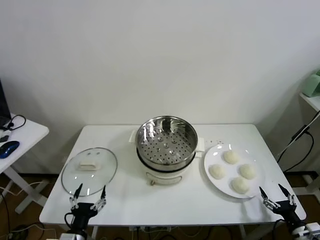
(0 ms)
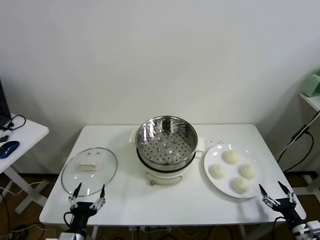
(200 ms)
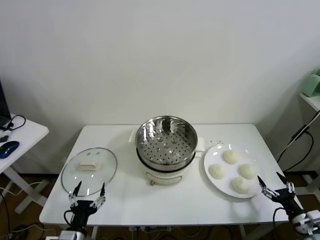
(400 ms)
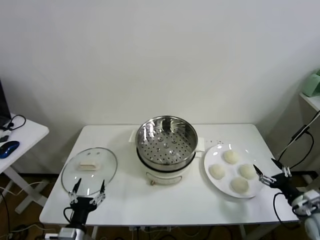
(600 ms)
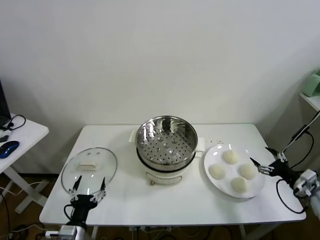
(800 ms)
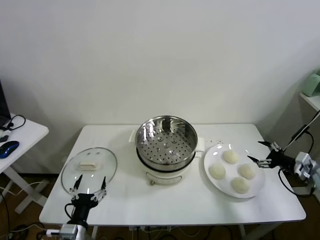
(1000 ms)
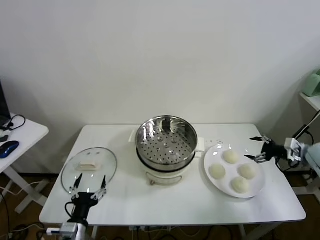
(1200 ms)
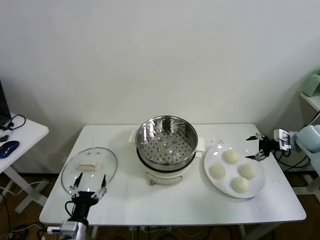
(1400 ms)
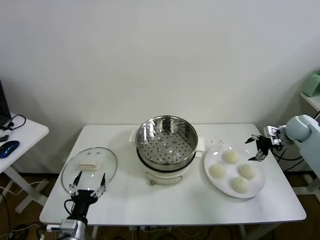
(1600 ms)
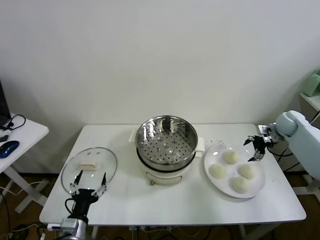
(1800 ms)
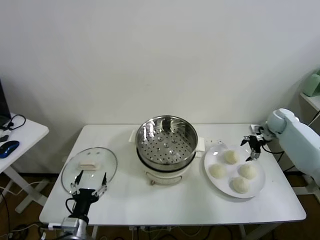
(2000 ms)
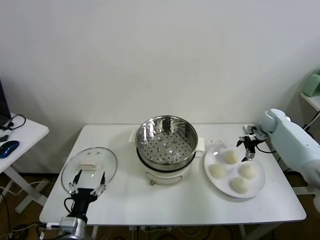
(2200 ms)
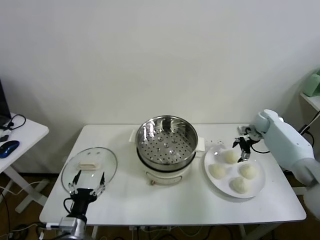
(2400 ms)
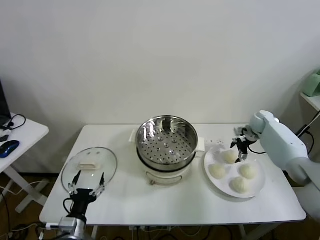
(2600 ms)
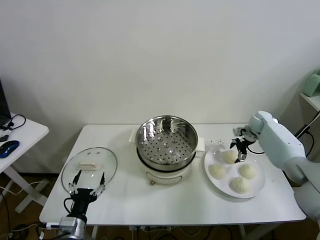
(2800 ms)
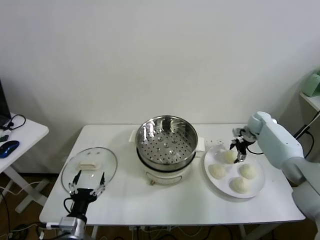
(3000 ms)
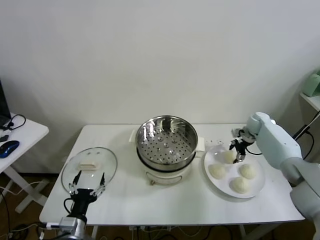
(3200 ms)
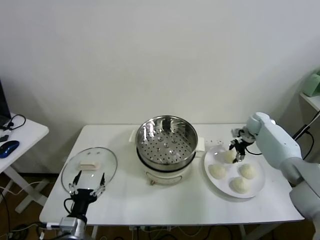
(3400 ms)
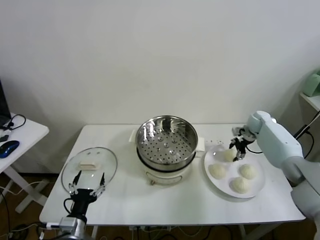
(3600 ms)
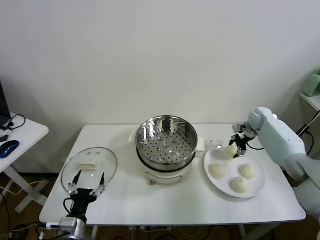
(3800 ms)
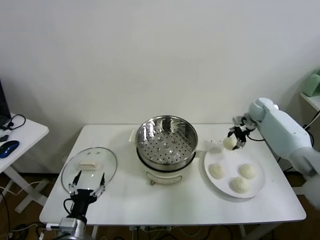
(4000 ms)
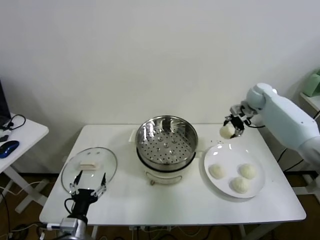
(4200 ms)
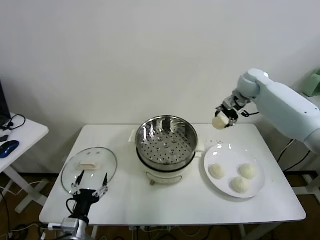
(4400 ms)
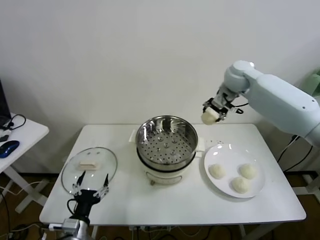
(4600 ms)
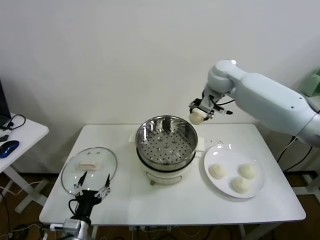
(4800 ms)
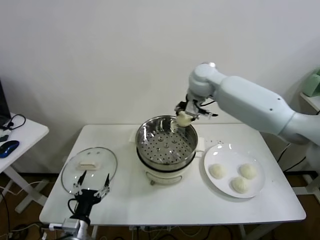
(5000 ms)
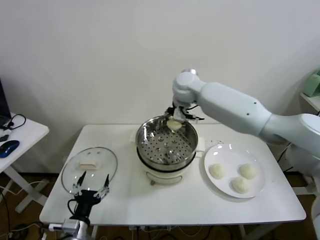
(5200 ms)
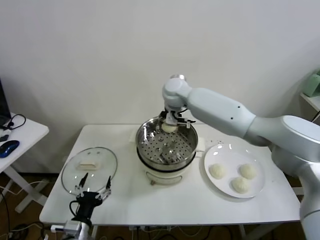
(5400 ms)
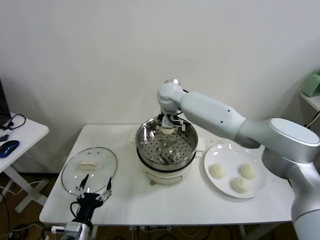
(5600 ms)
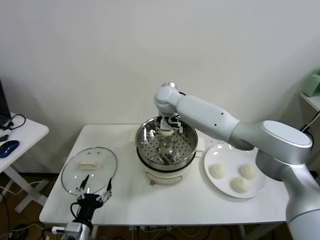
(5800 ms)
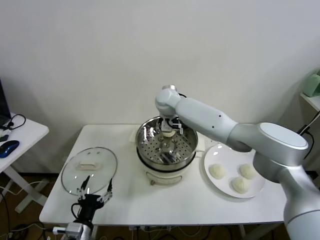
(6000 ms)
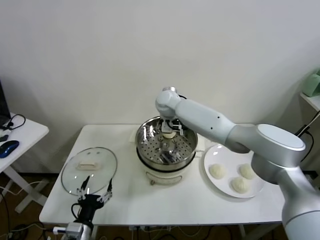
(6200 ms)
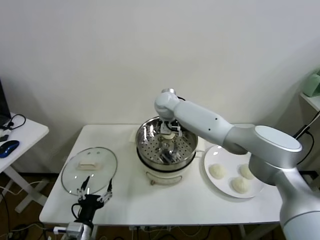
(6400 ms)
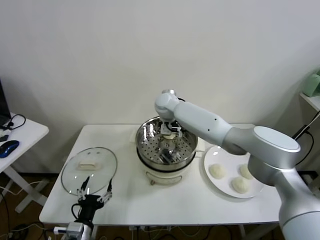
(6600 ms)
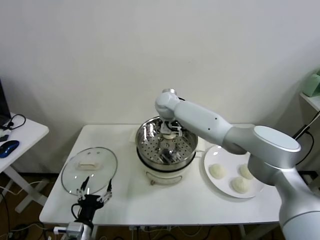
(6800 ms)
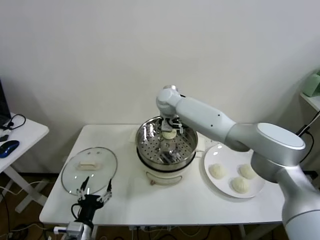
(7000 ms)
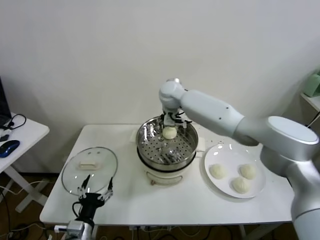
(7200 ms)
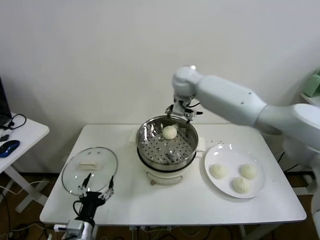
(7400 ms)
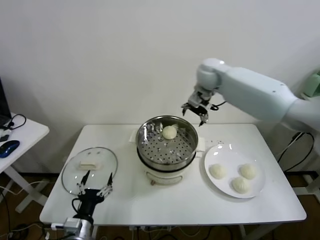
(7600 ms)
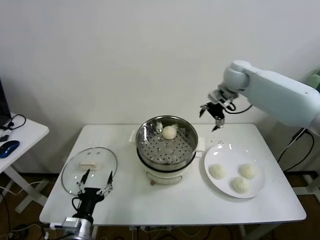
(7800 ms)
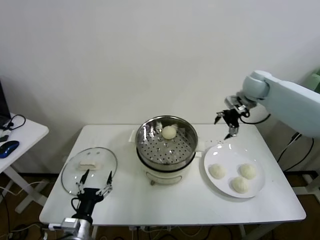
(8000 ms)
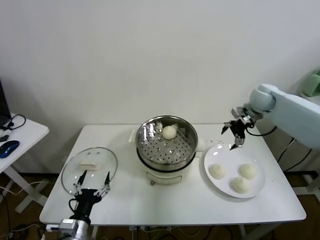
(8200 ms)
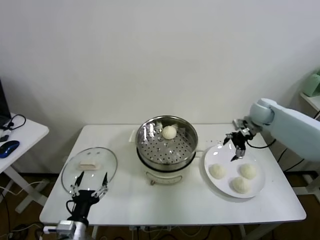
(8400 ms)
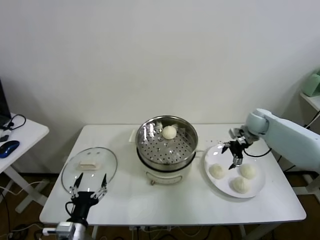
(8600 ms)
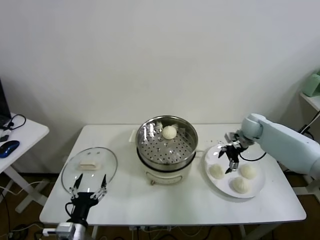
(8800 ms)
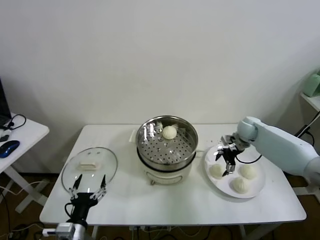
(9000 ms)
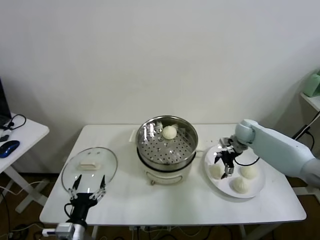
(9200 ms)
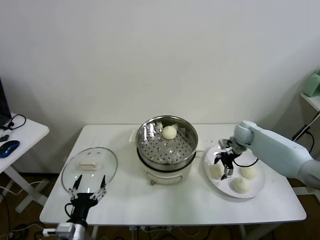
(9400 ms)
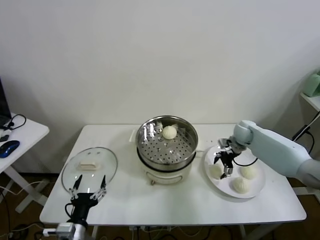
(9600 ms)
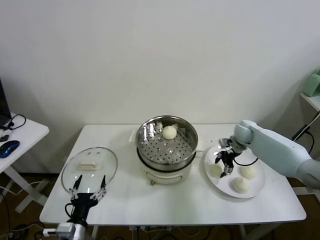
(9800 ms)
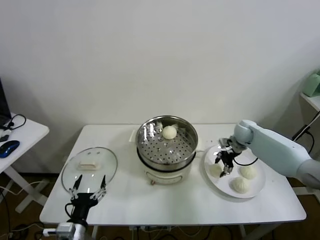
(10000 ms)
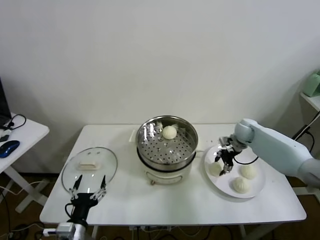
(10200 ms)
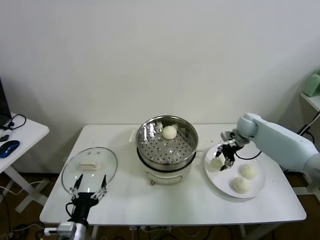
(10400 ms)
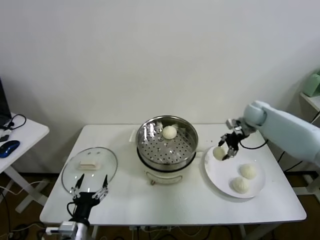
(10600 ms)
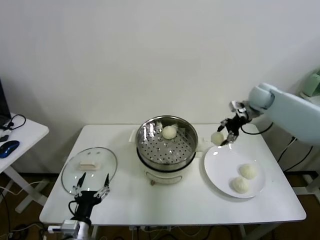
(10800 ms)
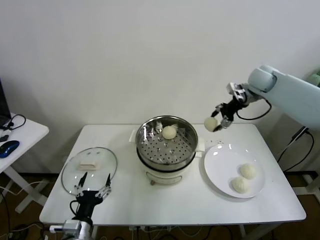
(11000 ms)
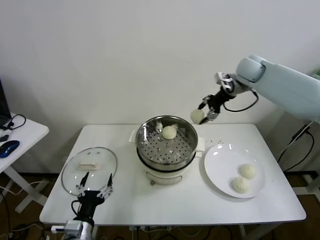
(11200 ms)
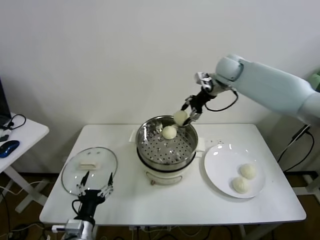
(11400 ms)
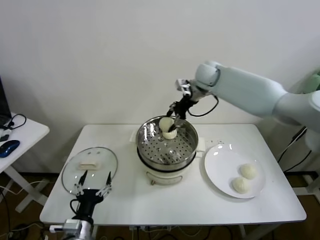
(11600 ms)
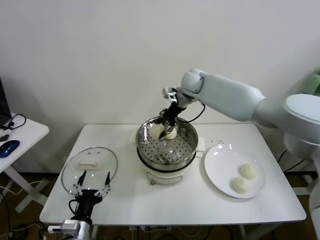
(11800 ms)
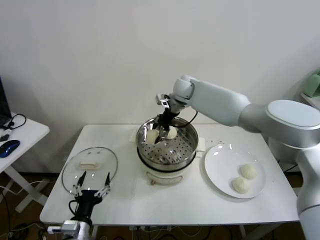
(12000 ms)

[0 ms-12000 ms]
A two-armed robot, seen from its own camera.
Task of the whole recording: take steamed baozi put them in steamer.
Step, 0 ms to 3200 ms: Grasp the baozi in the plate with right gripper.
Step, 3400 ms to 7000 ms: Place the baozi on the steamer with right gripper.
Step, 7200 ms to 9800 ms: Grasp the baozi in the plate with right gripper.
1600 ms to 3000 ms: The right gripper is displaced to the left, forward and downward by approximately 15 cm, and closes its fingers.
3000 ms to 4400 ms: The right gripper is displaced upward and to the left by some 25 cm, and closes its fingers.
4400 ms to 6000 ms: The right gripper is displaced to the left by about 25 cm.
6000 ms to 7600 ms: The right gripper goes some 20 cm to the right and upward, and opens its fingers.
7600 ms to 9000 ms: The right gripper travels downward and to the right by about 30 cm.
9000 ms to 10400 ms: The right gripper closes.
10400 ms to 12000 ms: The right gripper shifts roughly 30 cm to the left and upward.

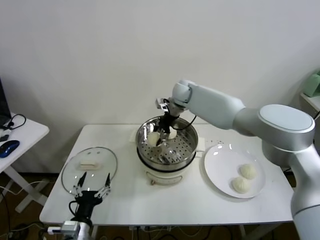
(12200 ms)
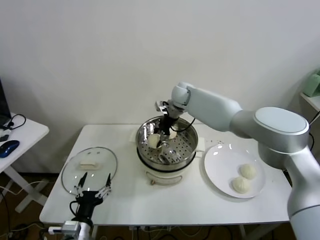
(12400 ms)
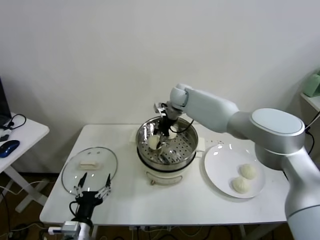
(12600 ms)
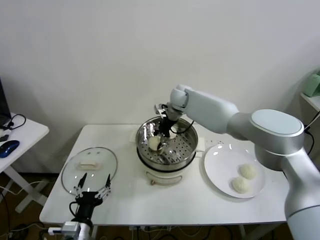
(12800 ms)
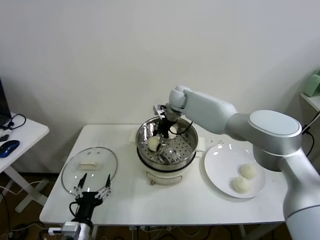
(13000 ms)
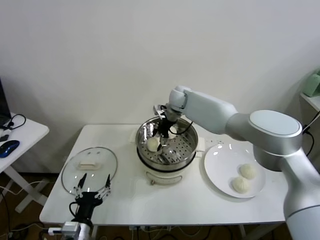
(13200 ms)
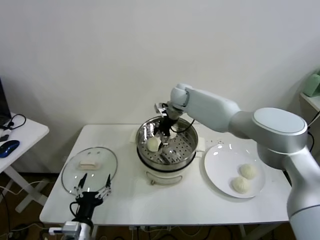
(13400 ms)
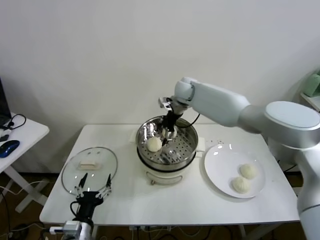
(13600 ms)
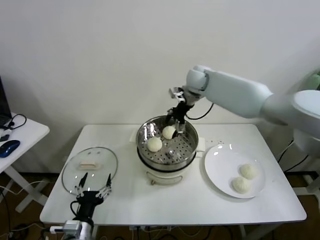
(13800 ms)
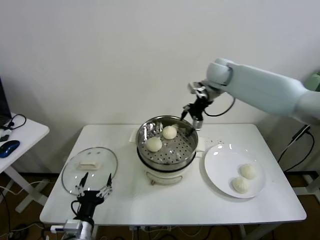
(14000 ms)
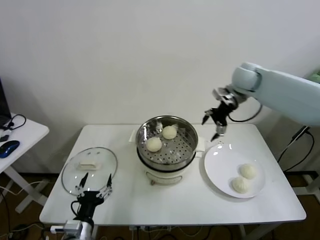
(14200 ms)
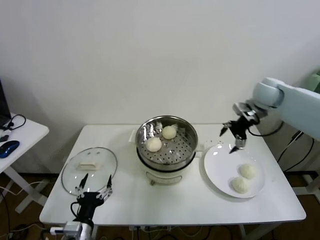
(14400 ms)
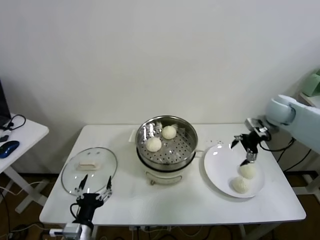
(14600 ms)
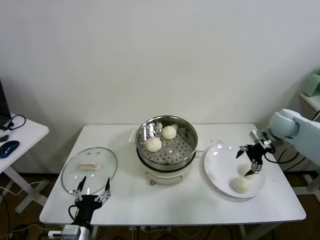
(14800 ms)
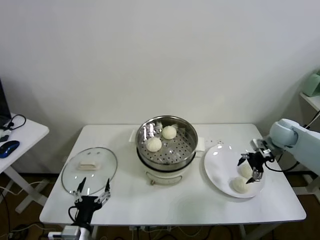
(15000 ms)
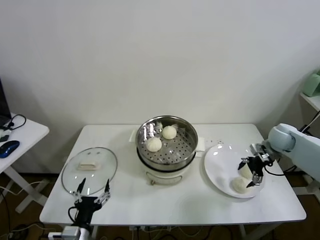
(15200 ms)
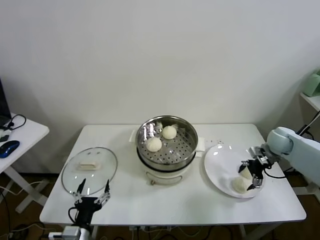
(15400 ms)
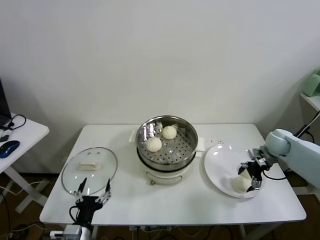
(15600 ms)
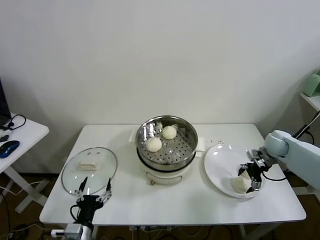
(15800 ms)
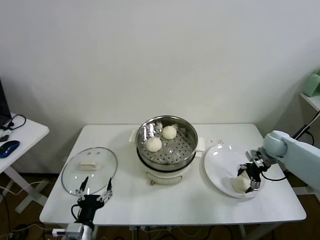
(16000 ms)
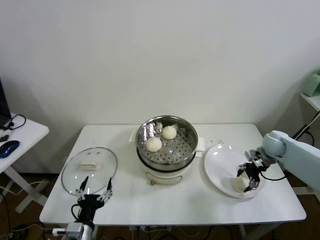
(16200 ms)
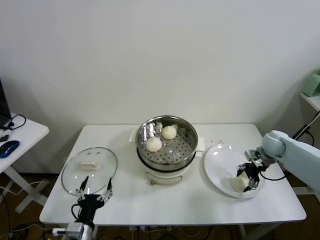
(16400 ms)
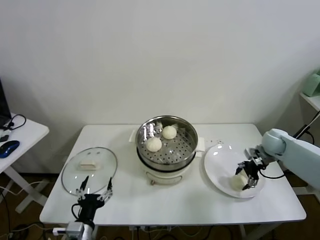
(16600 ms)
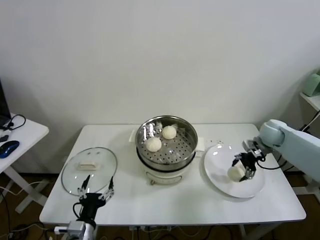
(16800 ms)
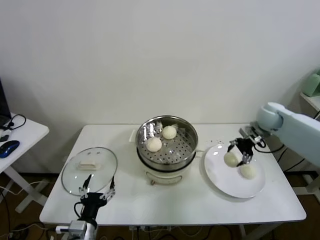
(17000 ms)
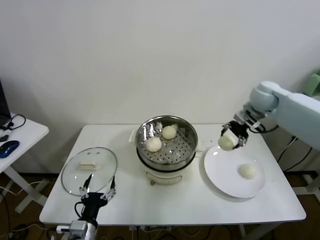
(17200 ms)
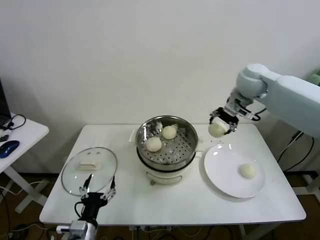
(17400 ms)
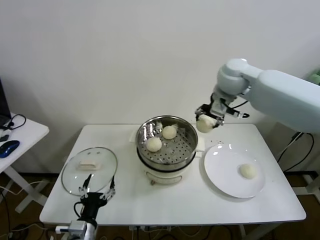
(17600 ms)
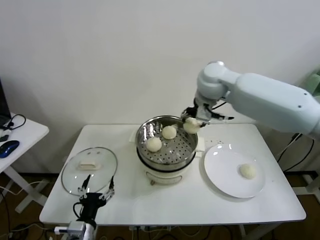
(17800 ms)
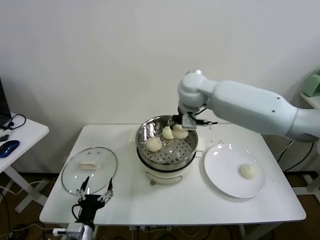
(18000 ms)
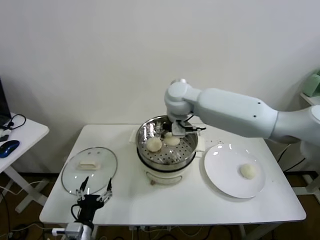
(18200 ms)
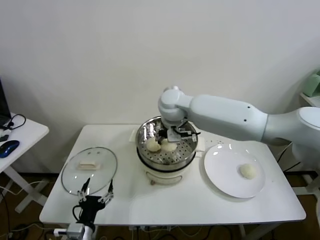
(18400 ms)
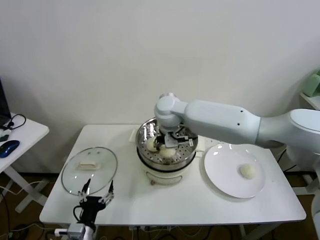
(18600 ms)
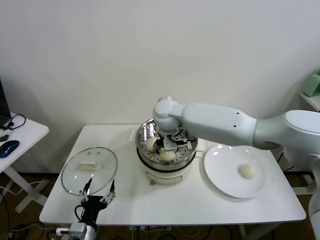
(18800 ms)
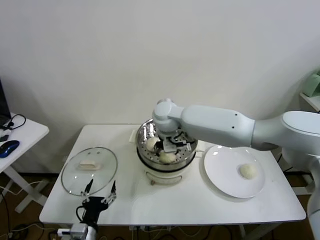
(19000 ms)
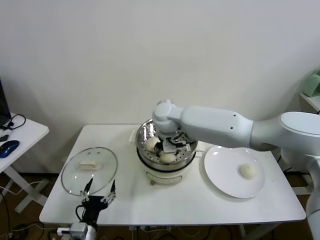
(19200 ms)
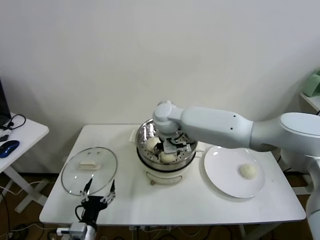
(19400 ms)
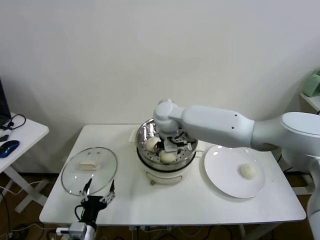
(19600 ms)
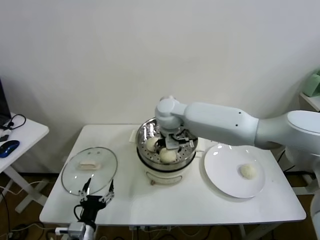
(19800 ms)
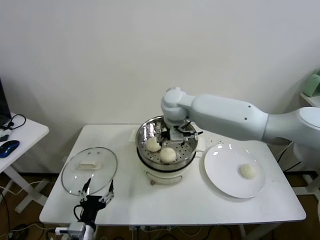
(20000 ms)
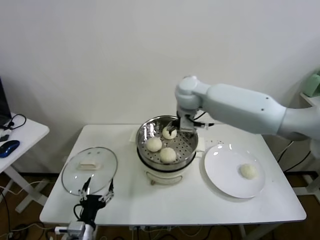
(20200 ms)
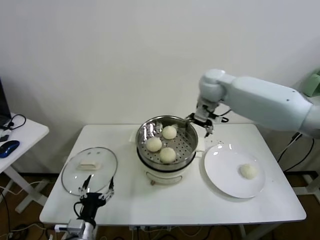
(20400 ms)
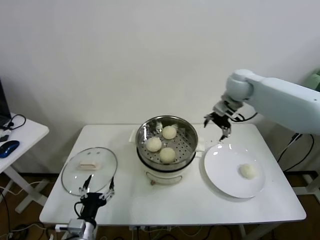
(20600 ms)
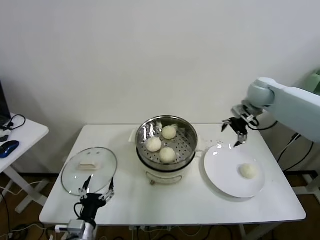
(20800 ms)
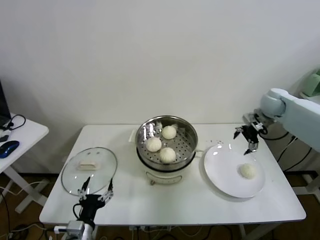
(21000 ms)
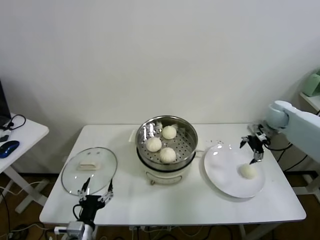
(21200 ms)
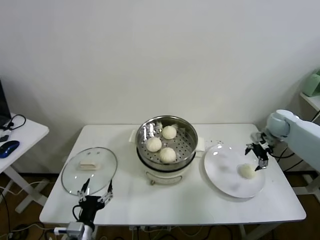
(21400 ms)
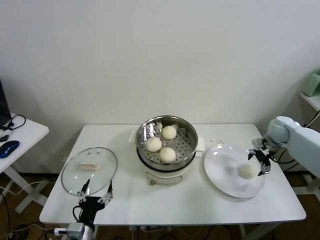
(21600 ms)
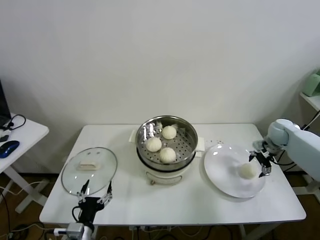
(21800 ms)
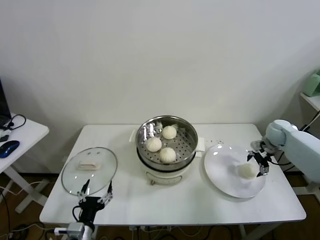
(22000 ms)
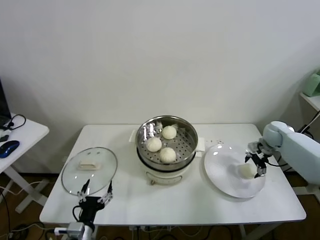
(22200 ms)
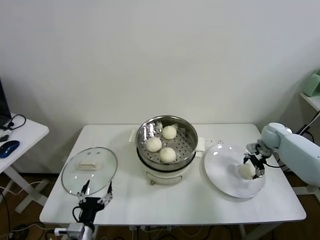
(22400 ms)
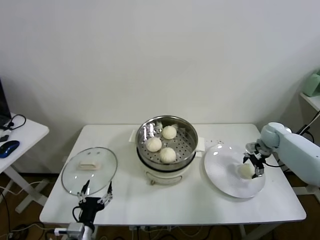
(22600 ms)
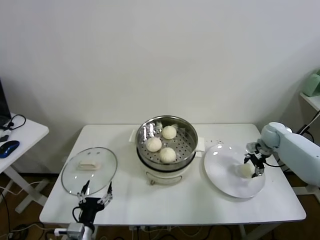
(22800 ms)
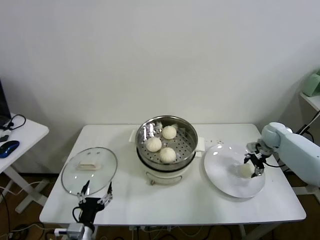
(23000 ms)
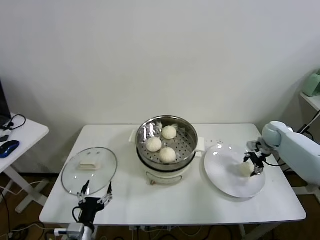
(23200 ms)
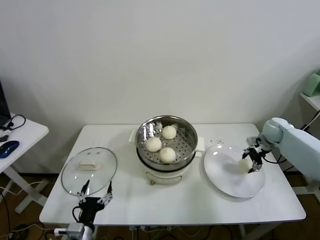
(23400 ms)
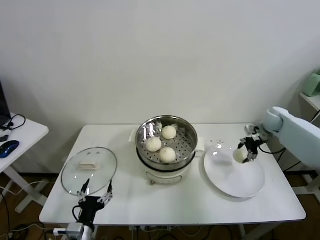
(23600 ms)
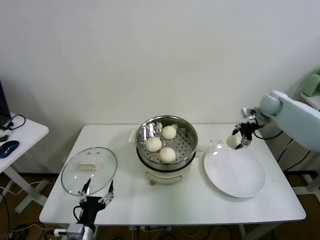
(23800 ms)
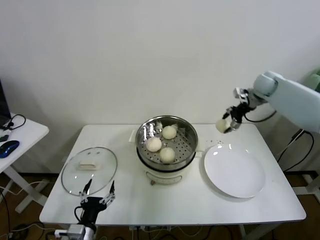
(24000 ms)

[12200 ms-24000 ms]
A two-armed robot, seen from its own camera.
Task of the whole recording: take steamed baozi put them in steamer.
Step, 13600 ms to 16200 ms: Grasp the baozi in the plate with right gripper.
Step, 16400 ms to 19800 ms: Place the baozi on the steamer with right gripper.
Step, 20000 ms to 22800 ms: Grasp the baozi in the plate with right gripper.
12200 ms to 13600 ms: The right gripper opens up.
13600 ms to 15200 ms: The right gripper shifts roughly 35 cm to the right and backward.
15200 ms to 16600 ms: The right gripper closes.
16600 ms to 18200 ms: The right gripper moves to the left and upward, roughly 40 cm.
18200 ms to 19600 ms: The right gripper travels downward by roughly 5 cm, and opens.
19600 ms to 21000 ms: The right gripper is displaced to the right by some 40 cm.
21000 ms to 22600 ms: The right gripper travels downward by some 15 cm.
22600 ms to 24000 ms: The right gripper travels upward and forward by approximately 20 cm, and closes up.
